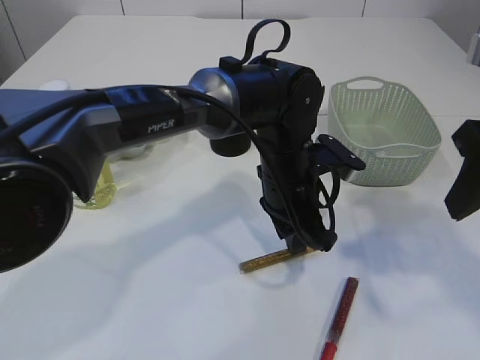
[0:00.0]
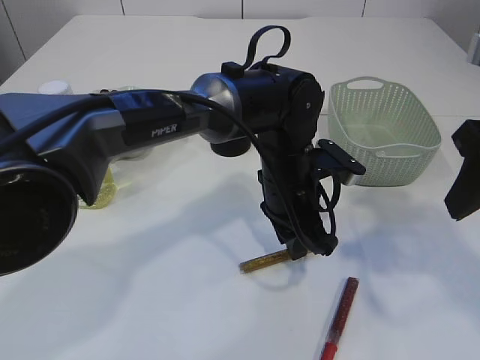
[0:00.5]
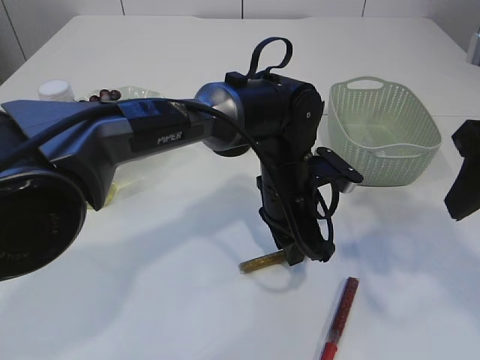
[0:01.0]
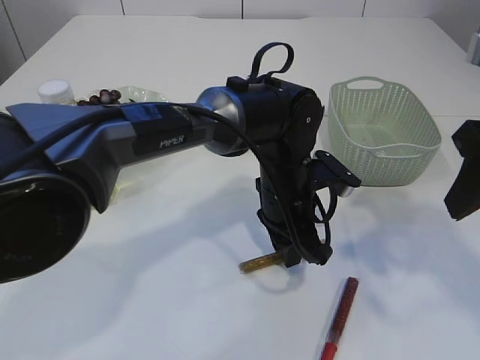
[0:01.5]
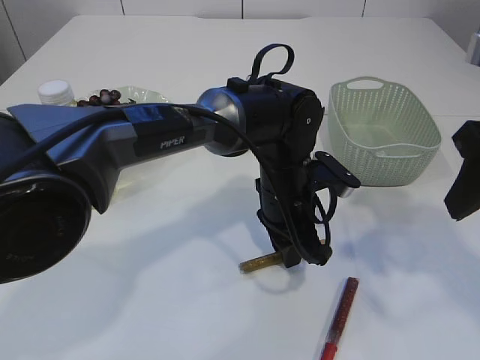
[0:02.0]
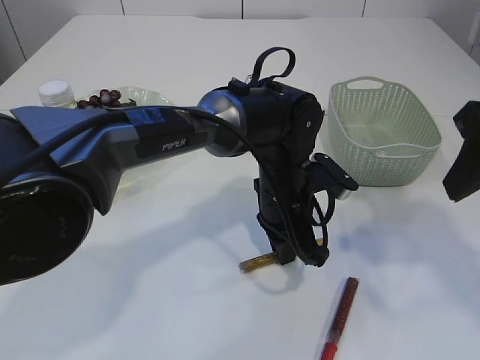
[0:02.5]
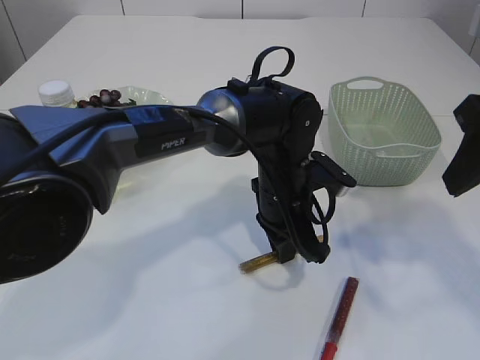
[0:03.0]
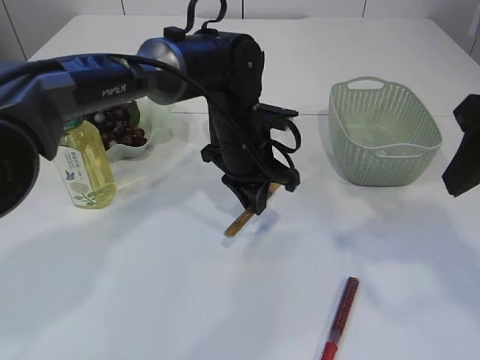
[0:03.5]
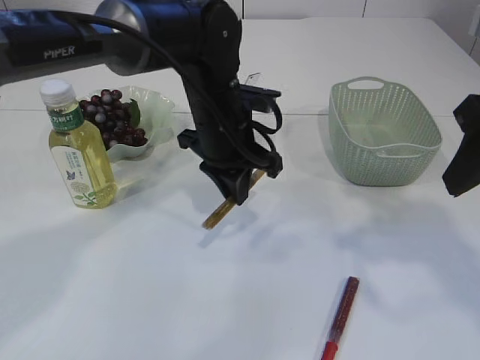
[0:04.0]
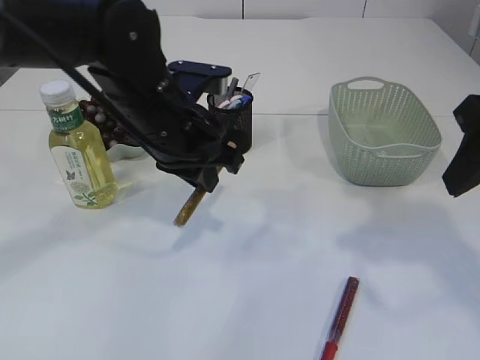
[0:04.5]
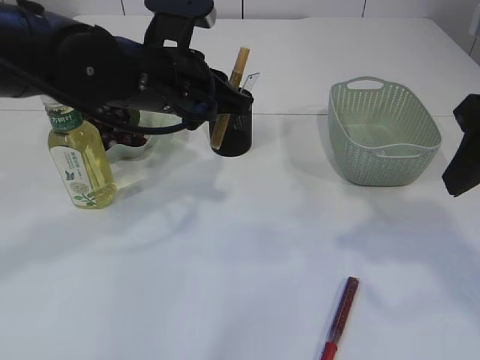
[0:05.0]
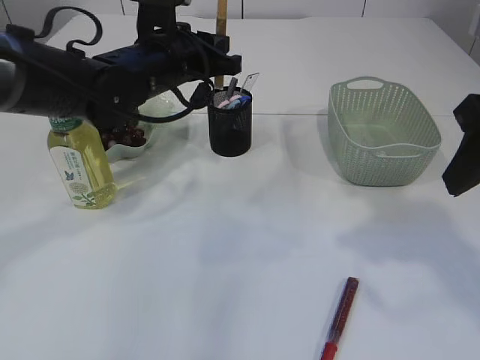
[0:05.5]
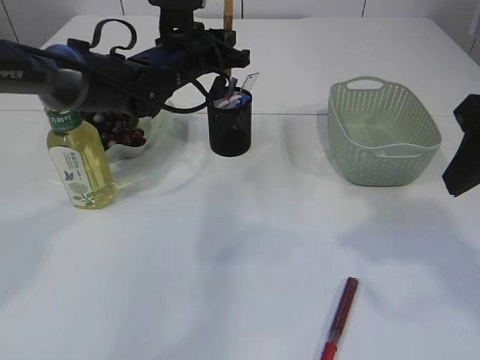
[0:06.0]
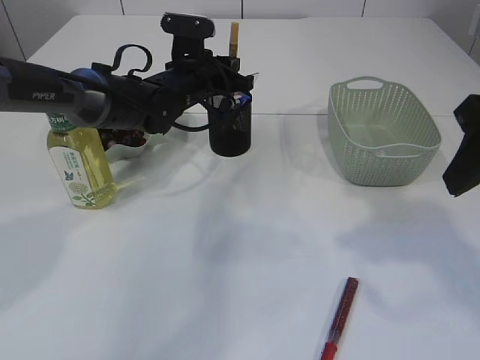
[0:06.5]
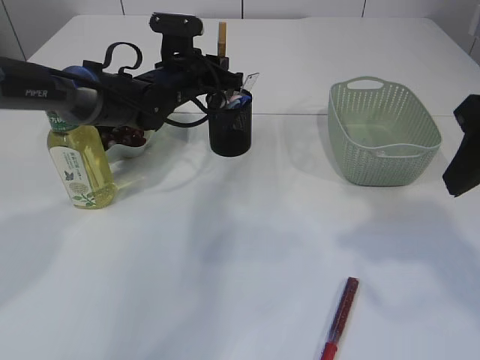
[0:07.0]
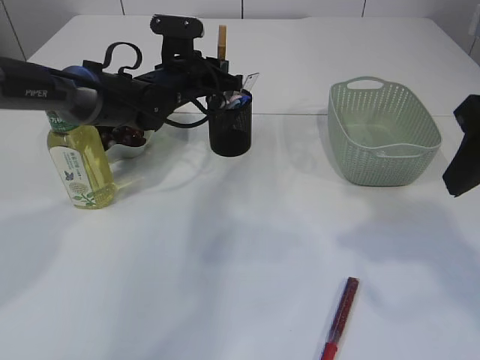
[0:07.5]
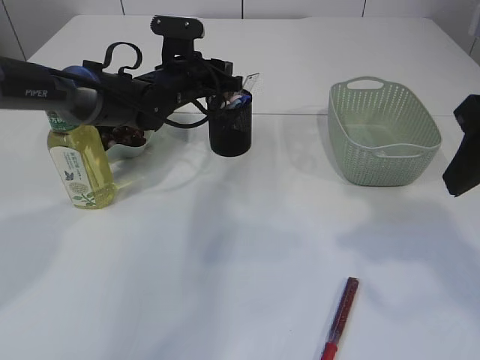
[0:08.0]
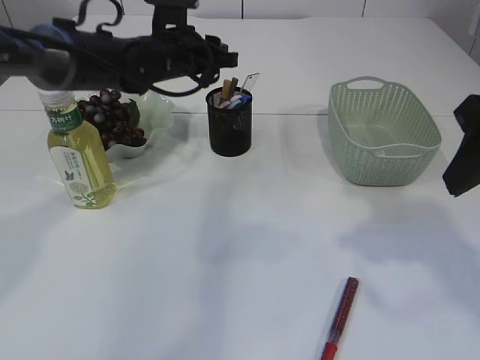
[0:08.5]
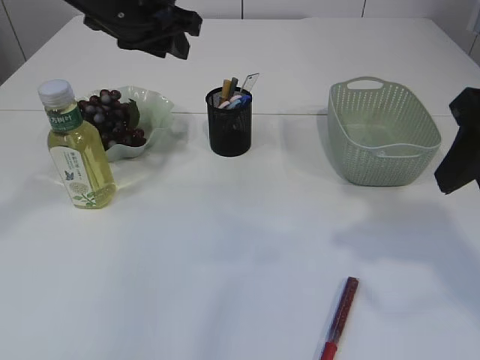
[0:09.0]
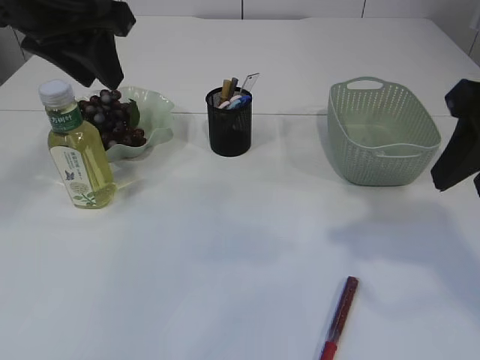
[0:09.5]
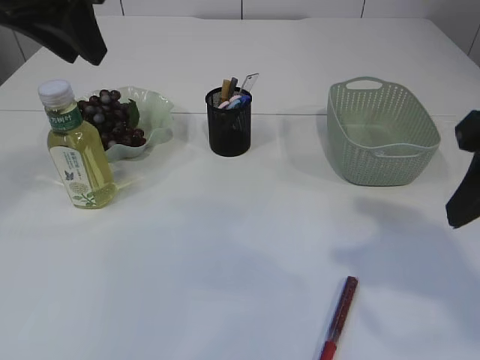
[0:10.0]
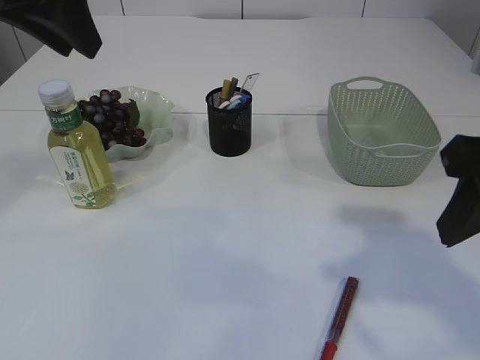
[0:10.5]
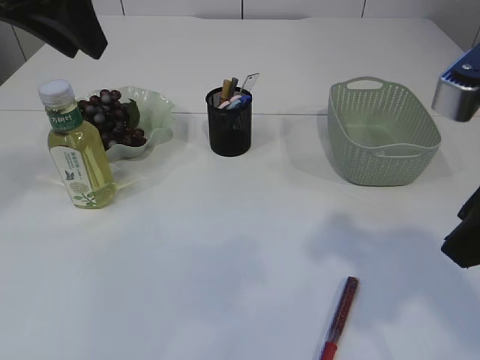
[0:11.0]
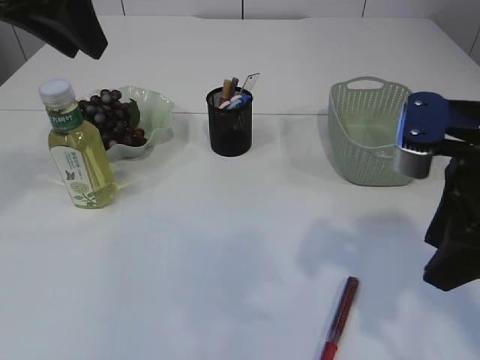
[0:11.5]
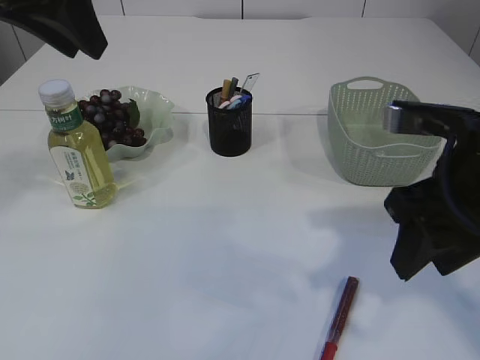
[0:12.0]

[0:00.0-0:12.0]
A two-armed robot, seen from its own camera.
Step, 0:00.0 to 0:03.5: pick up the yellow glue.
Step, 0:04.0 to 0:08.5: place the yellow glue into the pen holder.
0:00.0 to 0:02.0: There are only small adjustments of the grippers.
0:02.0 to 0:04.0: The left gripper travels to the left and upward by roughly 10 cm.
0:04.0 to 0:06.0: The left gripper goes approximately 10 cm forward and to the left.
0:06.0 to 0:08.0: The left gripper opens.
0:08.0 to 0:10.0: The left gripper moves upward and backward, roughly 30 cm.
0:10.0 to 0:12.0: The right gripper travels downward by roughly 5 cm.

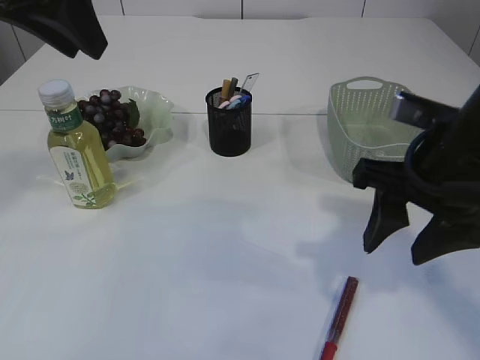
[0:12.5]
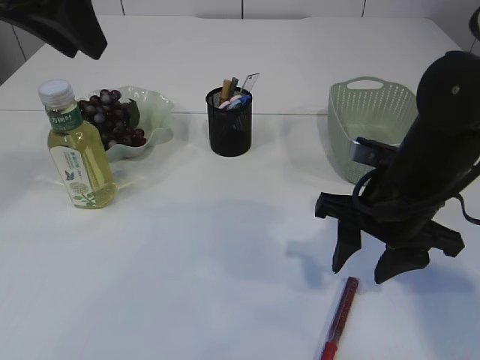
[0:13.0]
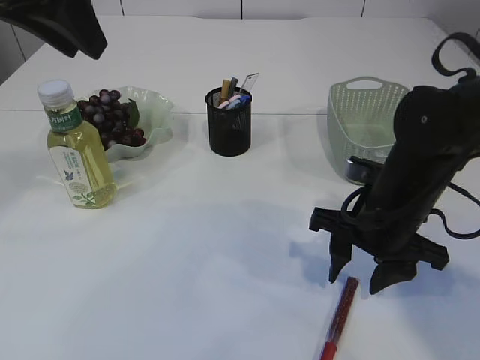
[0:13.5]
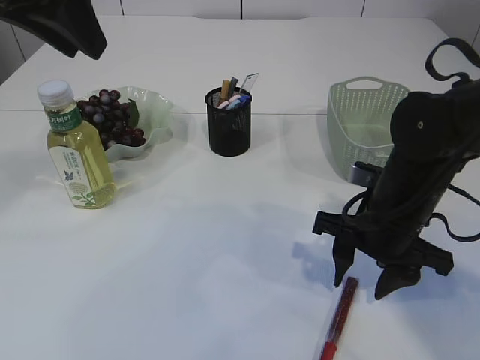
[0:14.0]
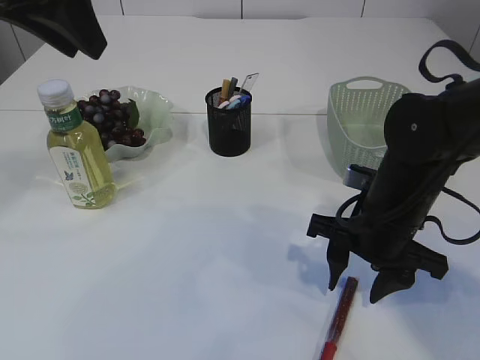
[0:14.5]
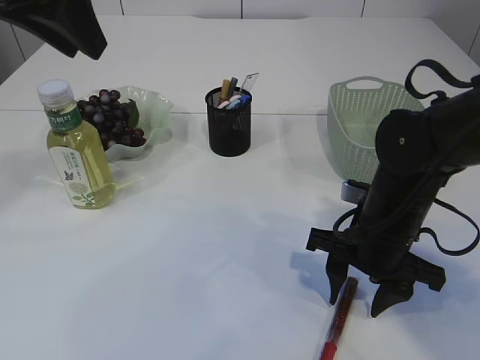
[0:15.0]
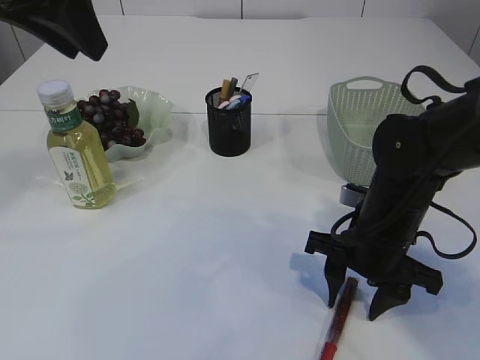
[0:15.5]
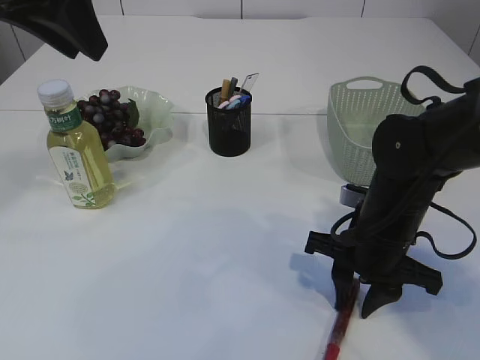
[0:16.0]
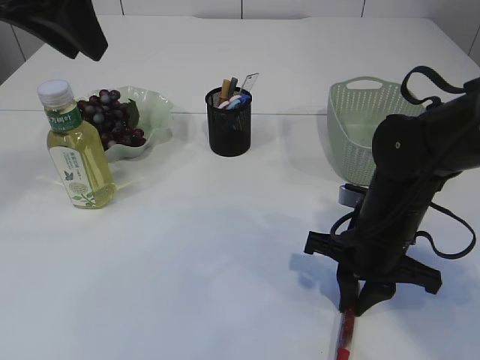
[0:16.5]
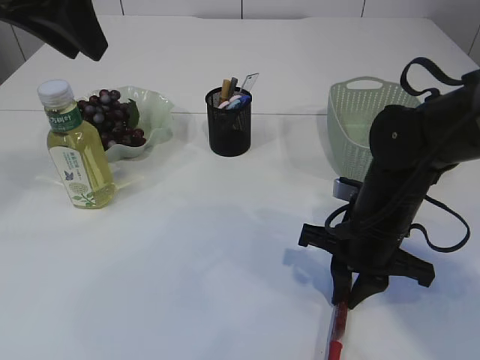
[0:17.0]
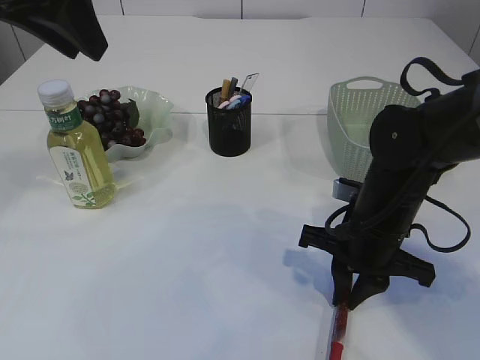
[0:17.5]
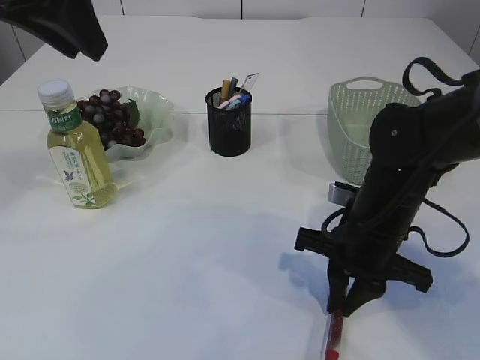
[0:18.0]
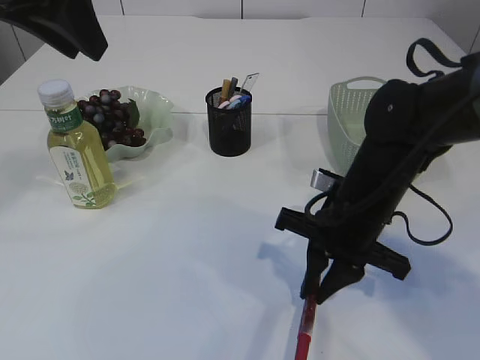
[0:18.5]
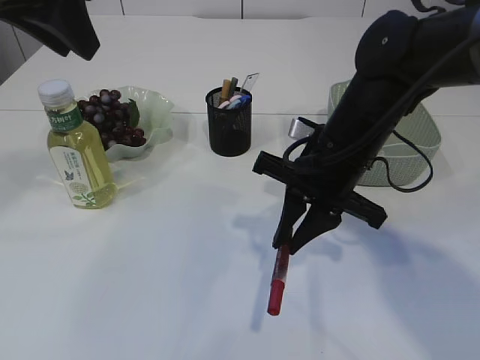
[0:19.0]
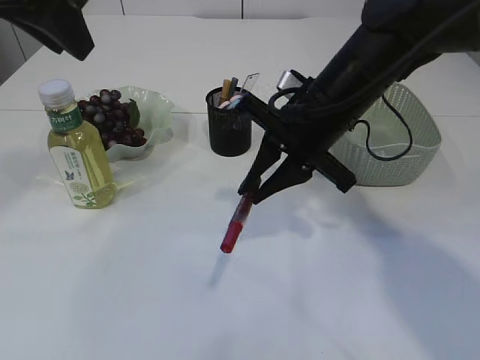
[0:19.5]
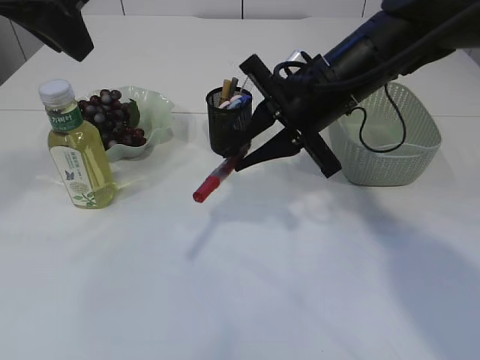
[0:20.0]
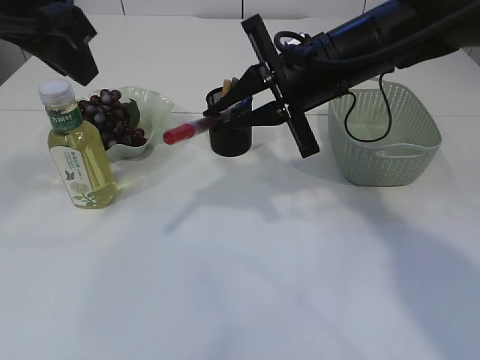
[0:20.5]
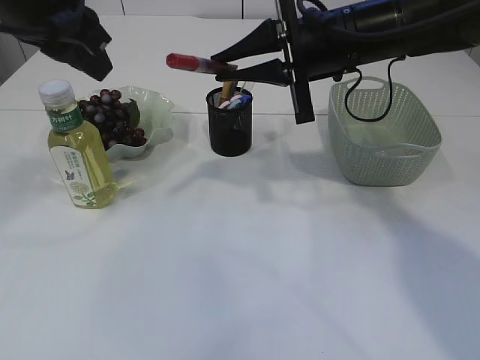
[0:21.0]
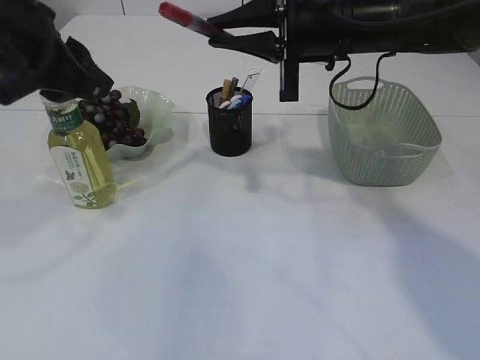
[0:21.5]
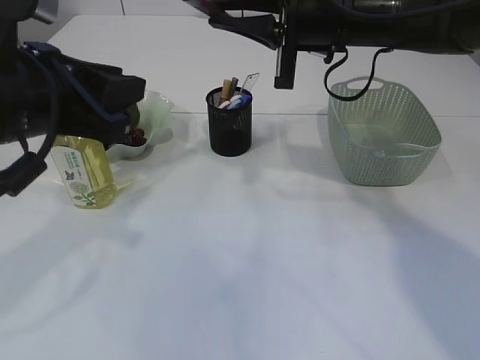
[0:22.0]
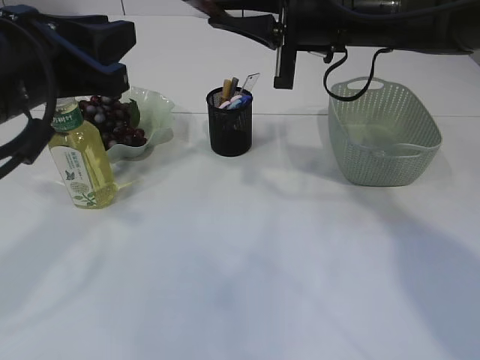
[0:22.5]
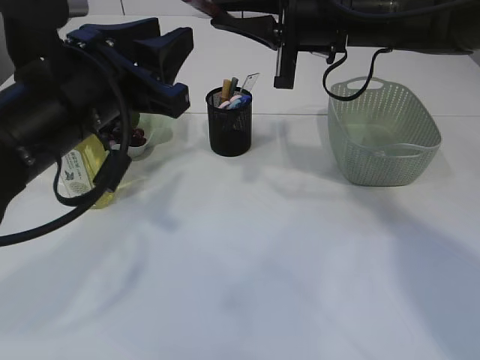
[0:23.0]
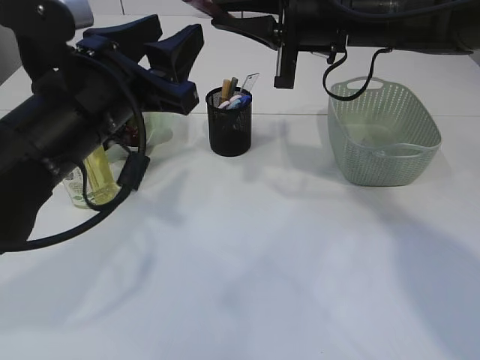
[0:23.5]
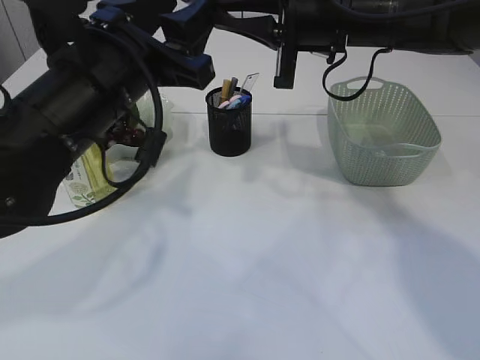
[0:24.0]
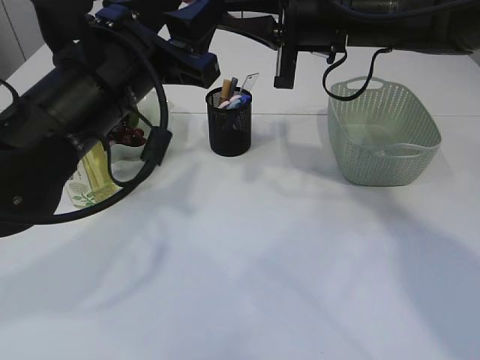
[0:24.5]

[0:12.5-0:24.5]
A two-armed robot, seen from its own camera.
Step, 0:12.5 to 0:19.0: pick up the red glue.
0:12.5 to 0:14.5: The right gripper moves downward, roughly 10 cm.
0:14.5 to 0:16.5: The right gripper closes its fingers.
0:16.5 to 0:18.5: The grippers make only small movements.
0:18.5 to 0:20.5: The right gripper moves upward and forward, approximately 15 cm.
0:20.5 to 0:22.5: The left gripper moves downward and backward, approximately 10 cm.
0:22.5 to 0:24.5: The left gripper goes roughly 5 cm to the right.

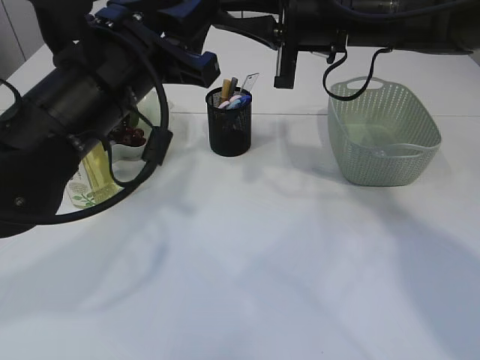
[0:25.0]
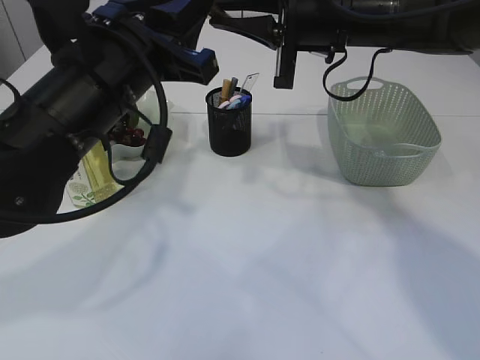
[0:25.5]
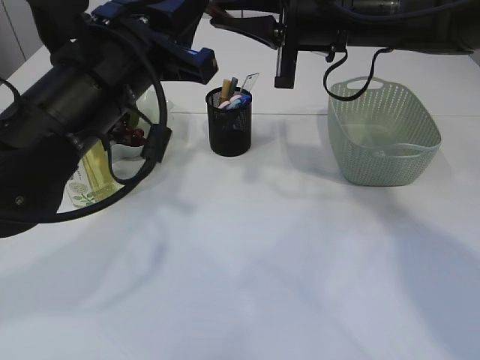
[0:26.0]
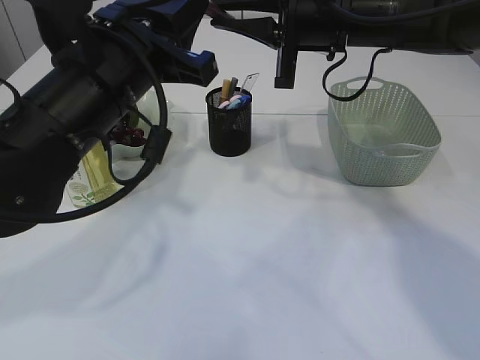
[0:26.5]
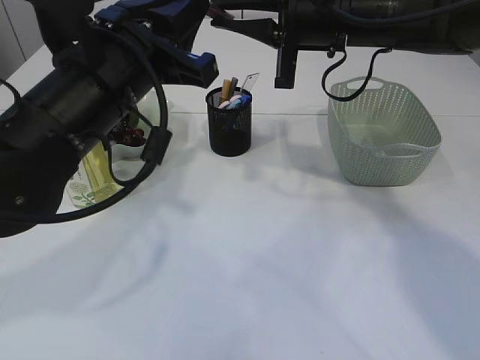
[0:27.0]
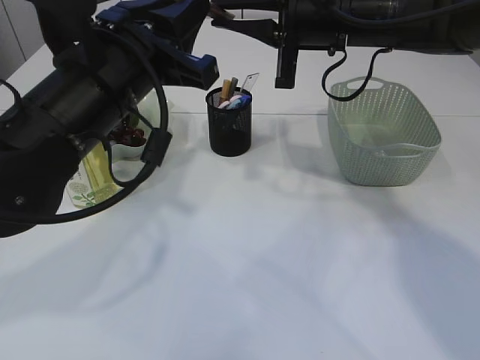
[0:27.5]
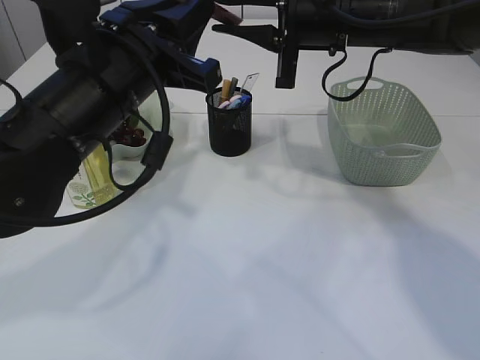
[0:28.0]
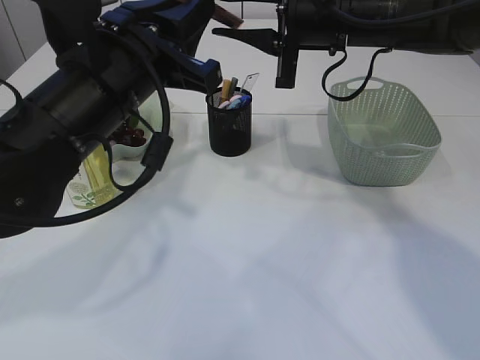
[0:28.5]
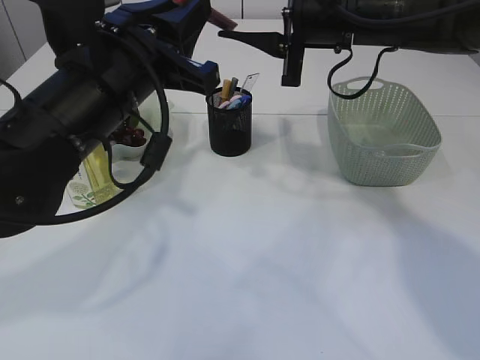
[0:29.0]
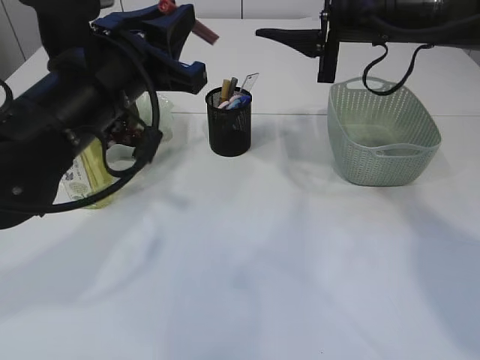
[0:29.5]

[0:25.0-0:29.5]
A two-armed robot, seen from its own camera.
0:25.0 to 0:27.0: The left gripper closes.
0:27.0 to 0:29.5: The right gripper opens.
